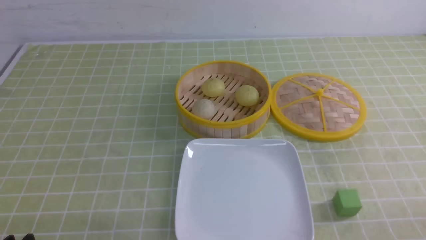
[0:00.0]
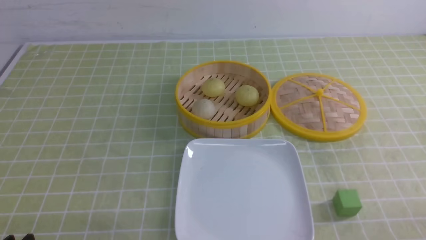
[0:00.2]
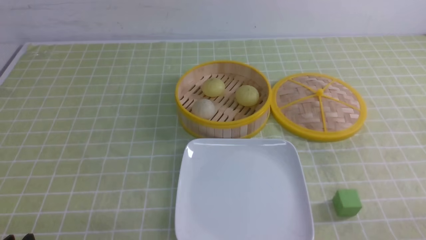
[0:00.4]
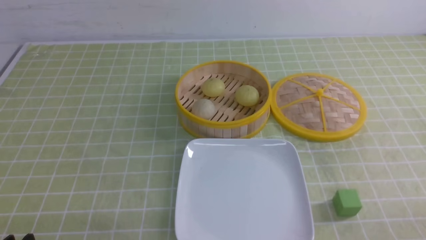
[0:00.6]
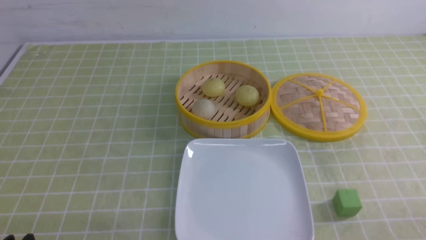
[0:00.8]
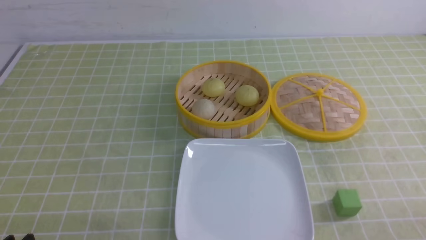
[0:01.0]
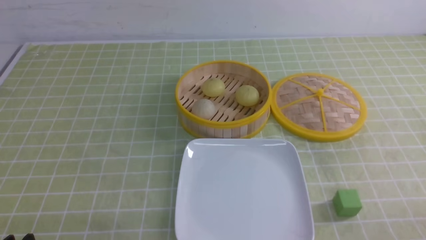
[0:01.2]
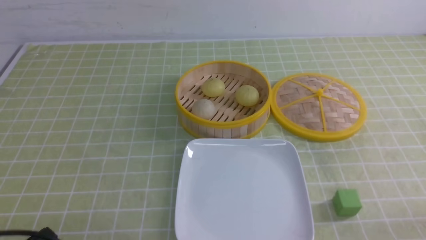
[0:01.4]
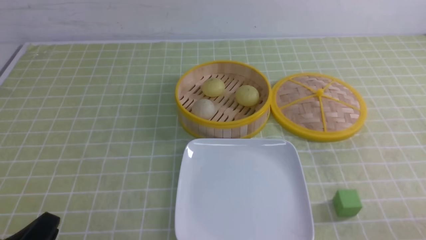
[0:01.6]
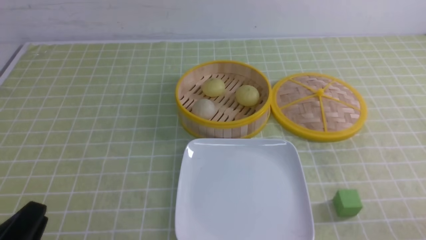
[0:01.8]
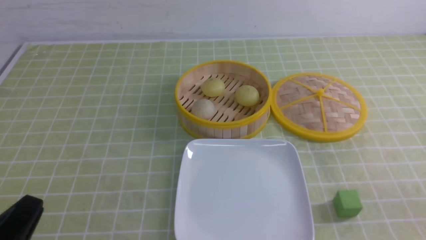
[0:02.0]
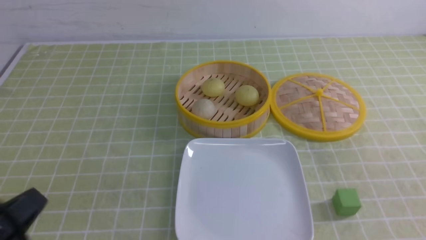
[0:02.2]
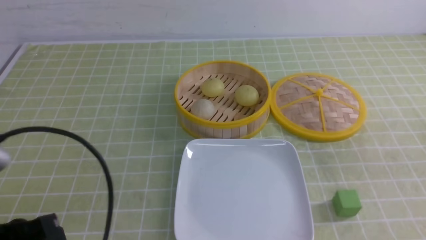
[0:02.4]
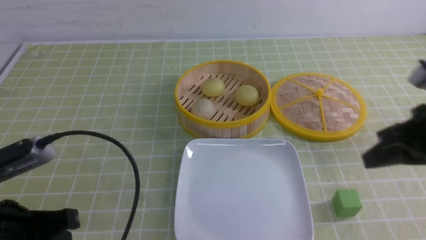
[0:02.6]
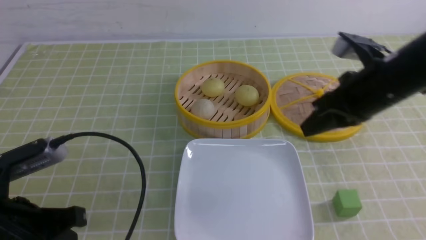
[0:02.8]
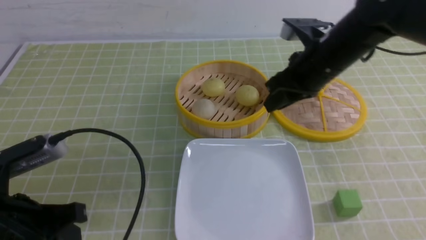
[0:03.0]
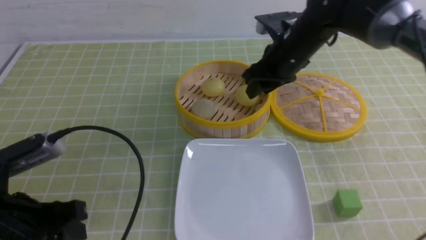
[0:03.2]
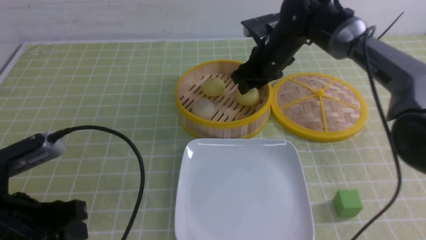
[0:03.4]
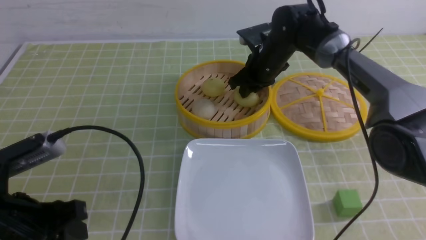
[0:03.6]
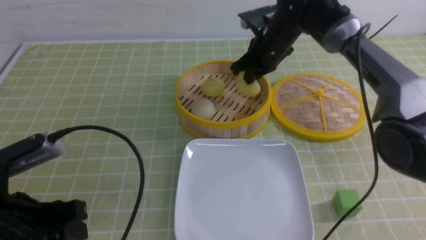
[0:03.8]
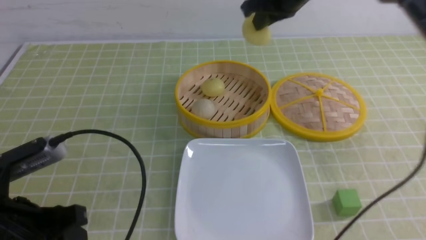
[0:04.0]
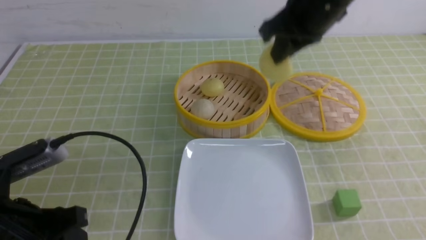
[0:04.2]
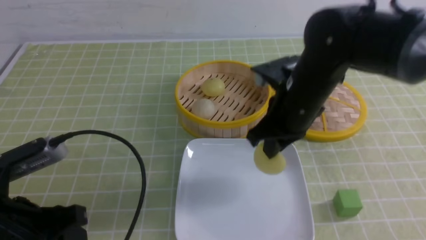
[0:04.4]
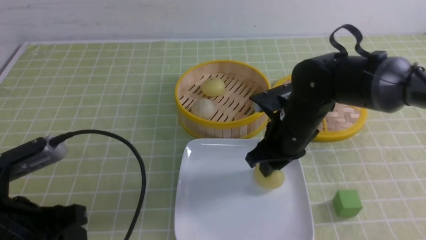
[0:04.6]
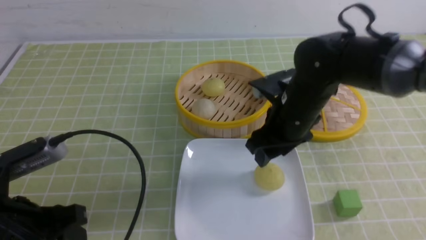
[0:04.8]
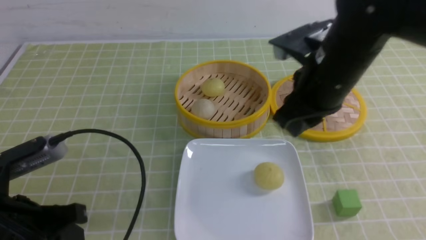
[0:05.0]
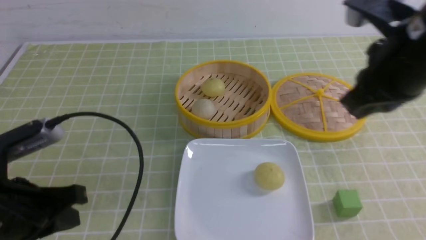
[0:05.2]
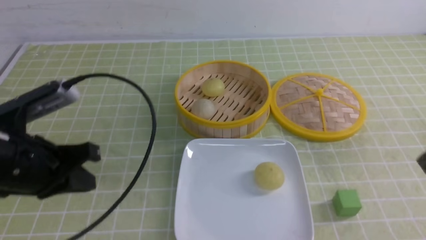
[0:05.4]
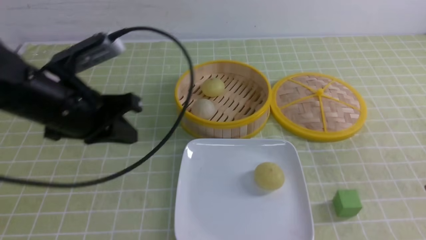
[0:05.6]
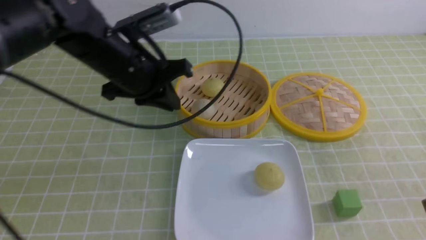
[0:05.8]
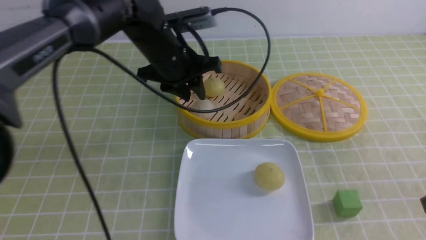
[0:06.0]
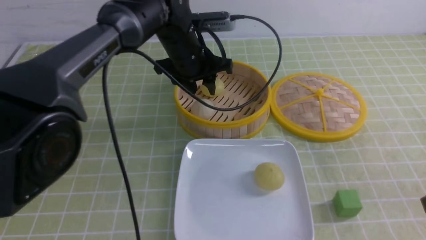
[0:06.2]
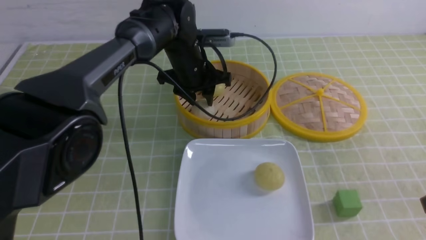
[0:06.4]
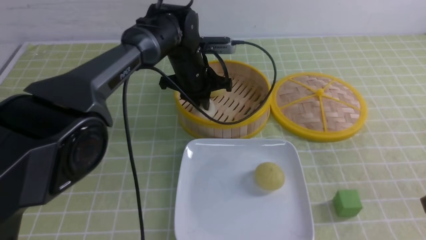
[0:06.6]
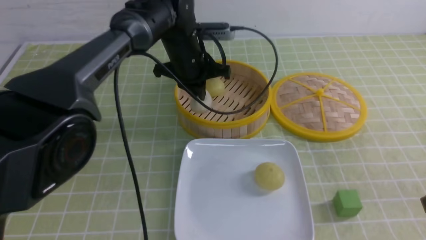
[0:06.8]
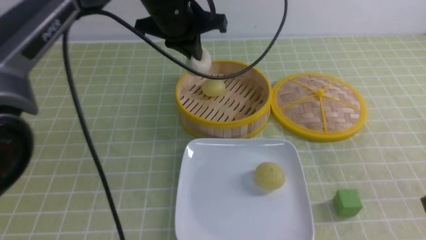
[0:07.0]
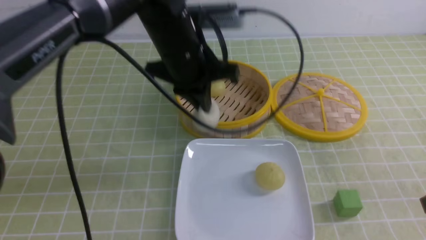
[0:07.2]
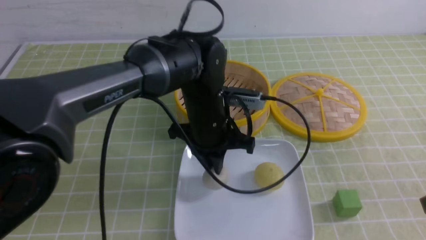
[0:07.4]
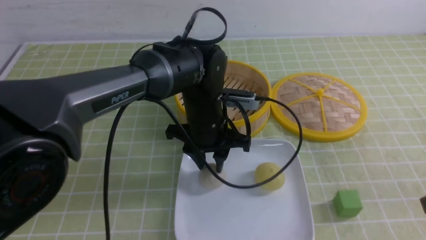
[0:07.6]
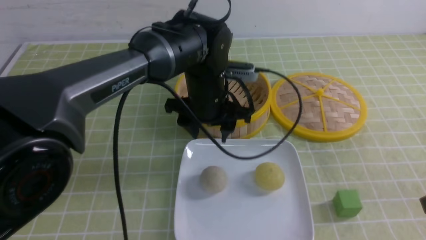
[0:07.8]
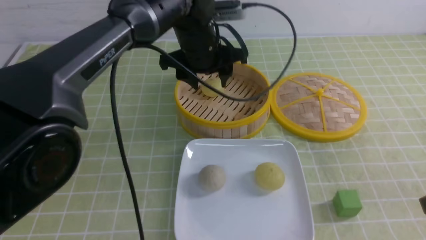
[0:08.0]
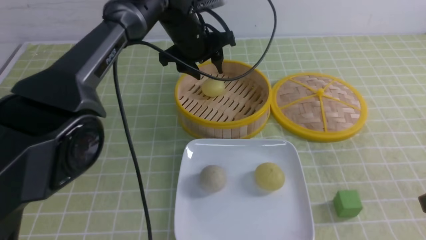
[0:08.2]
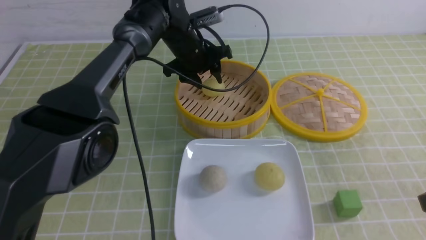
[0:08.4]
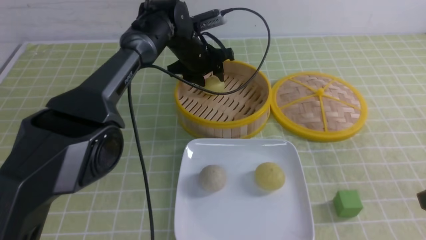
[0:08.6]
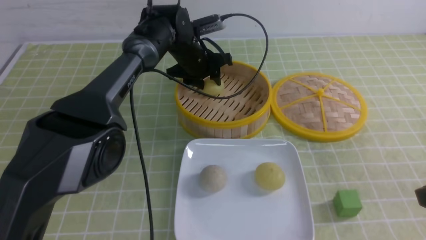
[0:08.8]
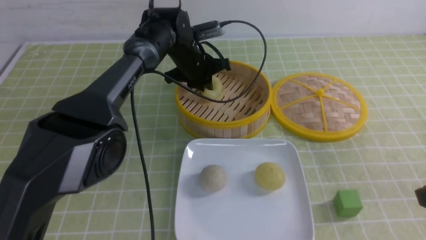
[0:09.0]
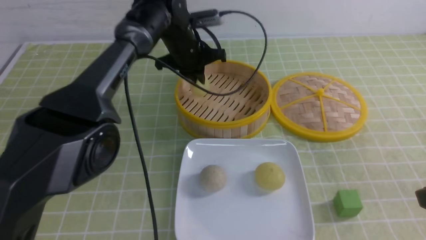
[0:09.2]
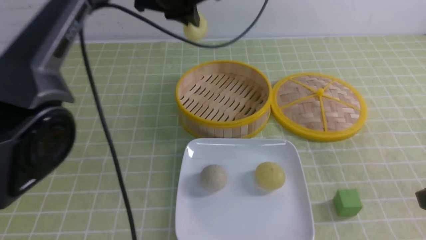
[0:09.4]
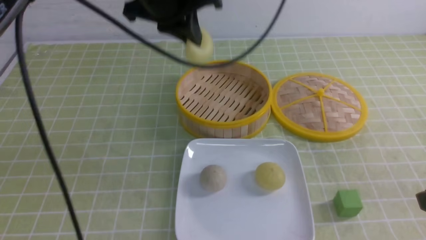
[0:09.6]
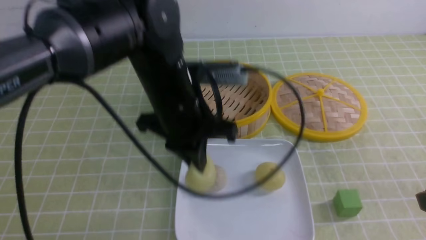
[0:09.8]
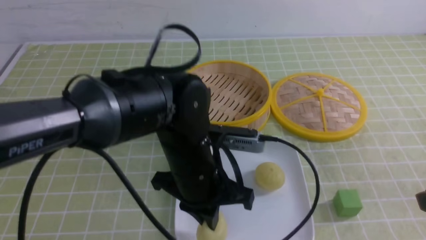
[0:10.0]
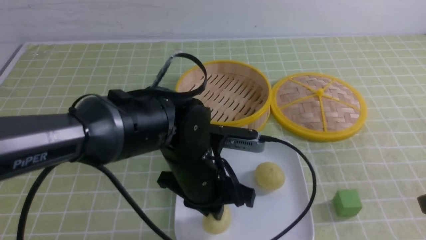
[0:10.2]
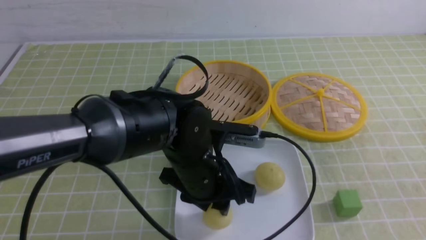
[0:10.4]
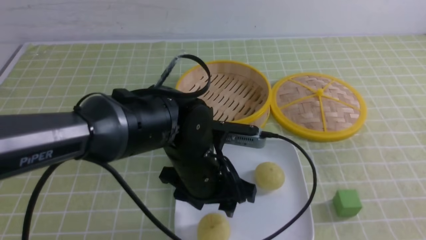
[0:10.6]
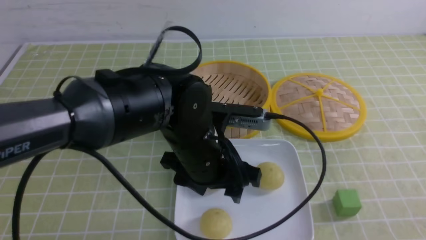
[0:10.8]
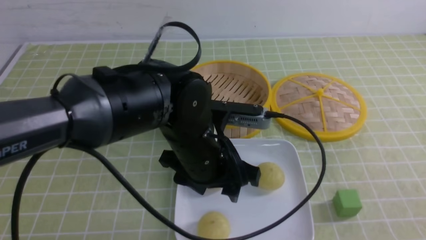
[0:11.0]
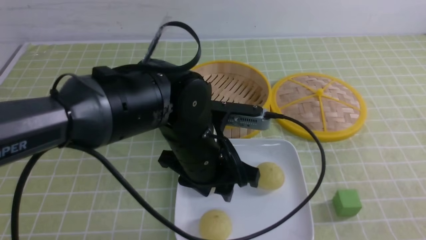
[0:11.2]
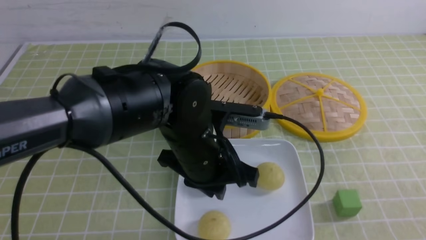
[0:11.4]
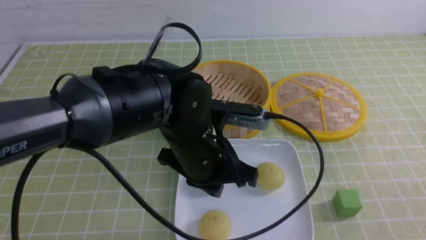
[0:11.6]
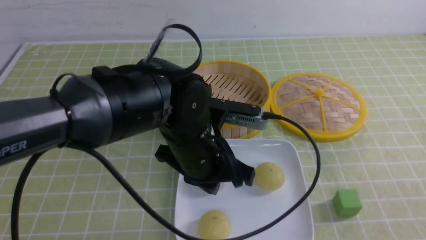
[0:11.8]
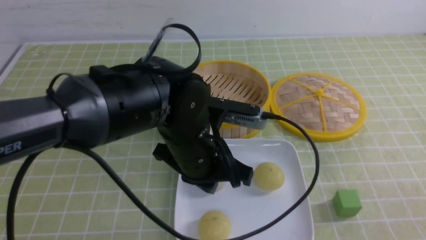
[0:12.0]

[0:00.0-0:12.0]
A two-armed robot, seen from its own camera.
Step, 0:00.0 to 0:03.6: use the right arm to grab the steamed stuffed bun that is closest to it.
Step, 0:03.8 to 0:04.6: use the right arm to put the steamed stuffed bun into the plate.
Step, 0:04.8 to 0:06.6: use the left arm to grab the steamed stuffed bun that is closest to it.
Step, 0:06.8 to 0:07.6: use the left arm to put the steamed stuffed bun into the plate.
Step, 0:07.8 to 0:09.0: use the left arm to grab the steamed stuffed bun that is closest to it.
Step, 0:09.2 to 0:10.4: use the left arm to put the steamed stuffed bun into the plate.
0:01.6 to 0:03.0: The right gripper moves forward and to the left, some 35 cm, and closes, then opens again. Meanwhile the left gripper shifts some 10 cm forward and upward, and closes, then opens again.
0:03.0 to 0:04.4: The right gripper moves approximately 10 cm forward and comes back, and closes.
0:04.4 to 0:06.0: The right gripper heads backward and to the right, covering approximately 25 cm, and opens and closes again, while the left gripper shifts roughly 30 cm forward and to the right, and closes and opens again.
0:06.0 to 0:07.6: The left gripper shifts some 10 cm downward, to the right and backward, and closes, then opens again.
0:07.6 to 0:09.0: The left gripper is displaced forward by about 15 cm, and closes.
0:09.0 to 0:10.4: The right gripper moves roughly 5 cm; the left gripper is displaced backward by about 25 cm, and opens.
0:10.4 to 0:12.0: The right gripper moves downward, approximately 10 cm; the left gripper heads upward, covering roughly 5 cm, and closes up.

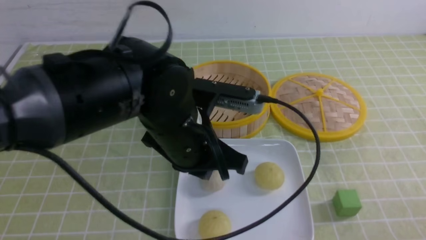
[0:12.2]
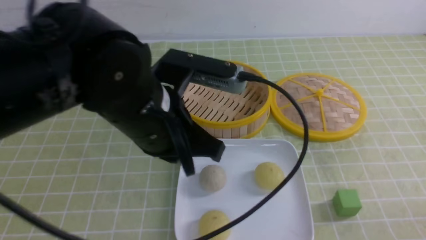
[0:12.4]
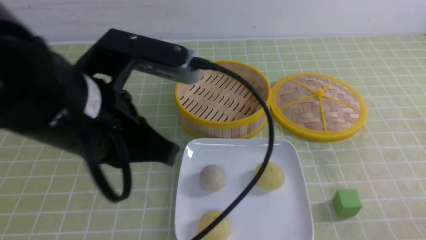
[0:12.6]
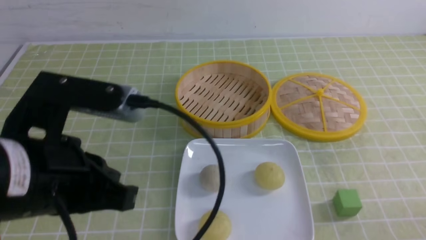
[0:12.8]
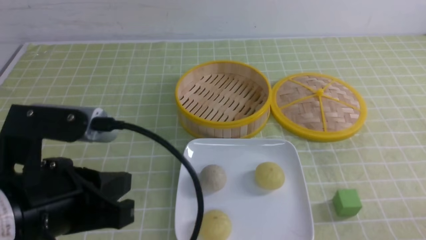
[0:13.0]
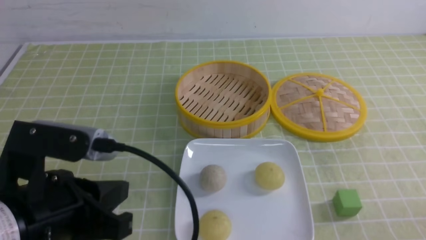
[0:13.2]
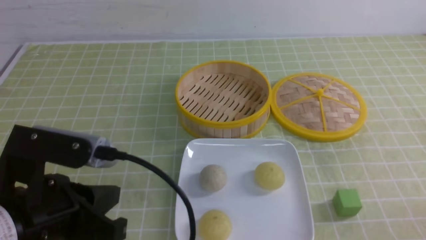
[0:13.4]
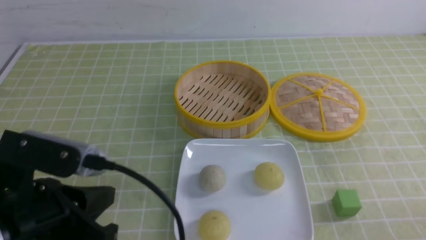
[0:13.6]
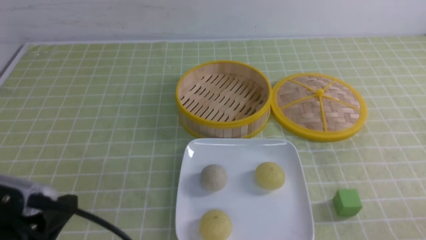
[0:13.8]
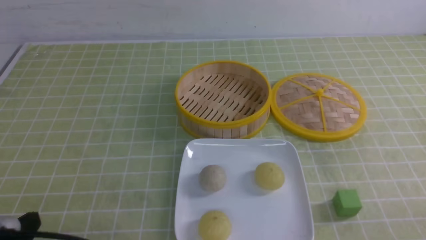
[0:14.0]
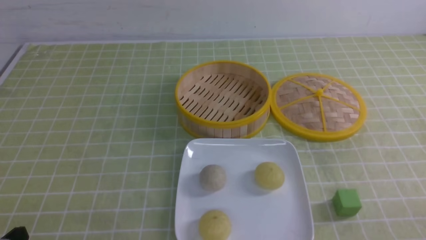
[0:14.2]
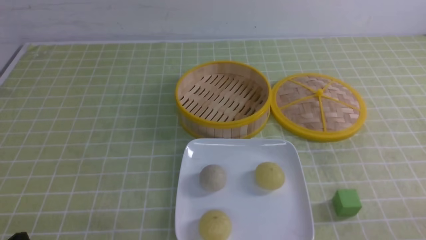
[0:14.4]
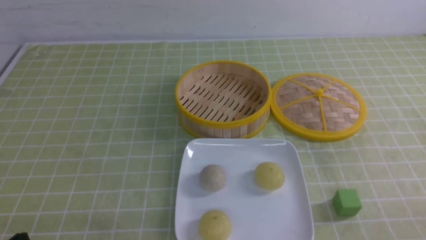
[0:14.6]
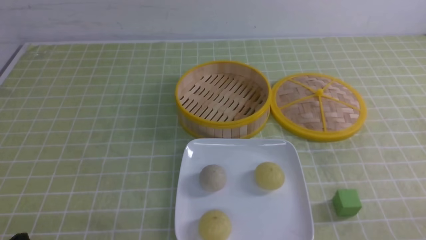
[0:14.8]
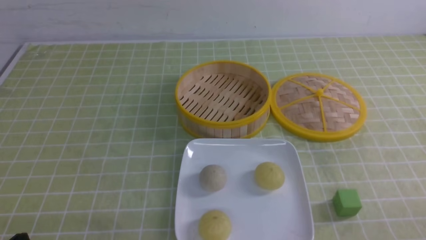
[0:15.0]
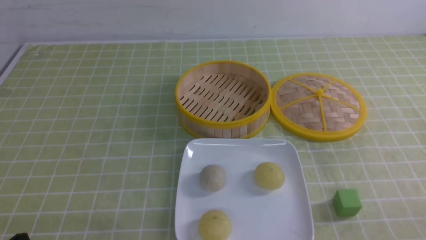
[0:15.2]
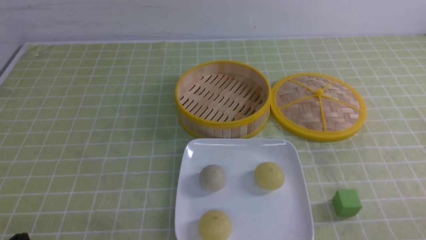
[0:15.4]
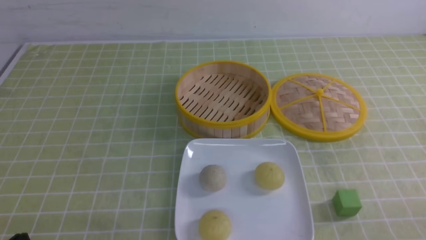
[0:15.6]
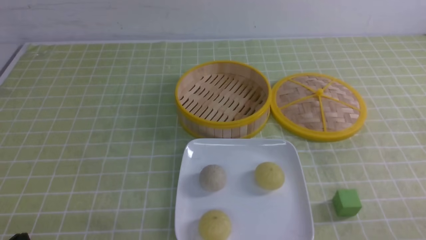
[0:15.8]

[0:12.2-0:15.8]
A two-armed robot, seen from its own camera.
0:12.2 to 0:14.0: The left gripper heads to the left and backward, covering approximately 25 cm.
0:14.0 to 0:15.8: There are only small adjustments of the grippers.

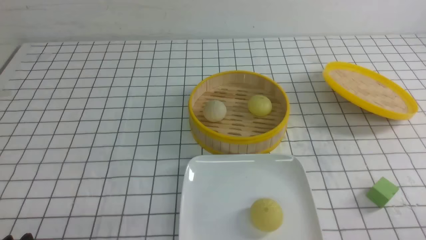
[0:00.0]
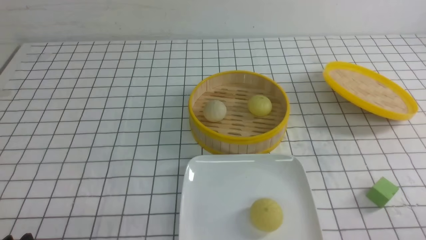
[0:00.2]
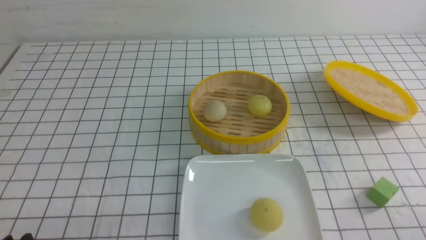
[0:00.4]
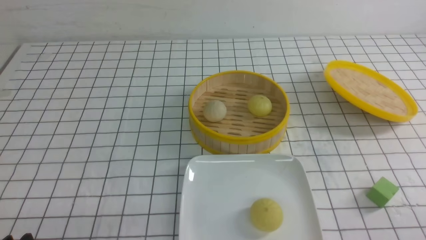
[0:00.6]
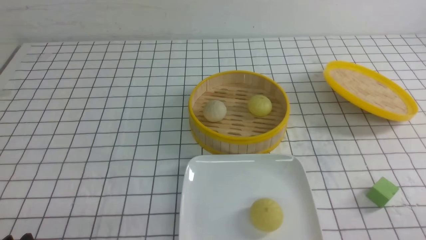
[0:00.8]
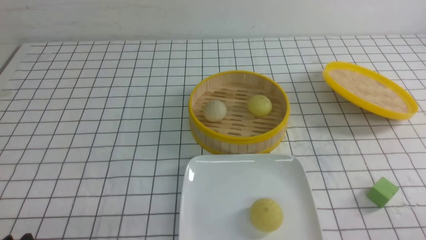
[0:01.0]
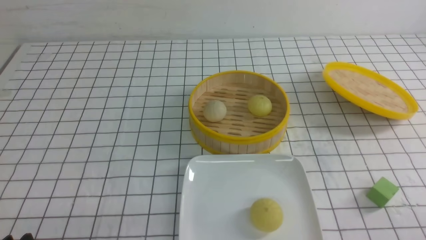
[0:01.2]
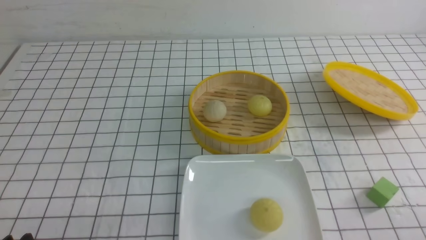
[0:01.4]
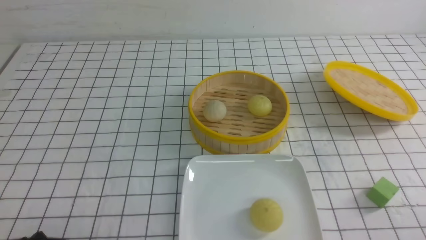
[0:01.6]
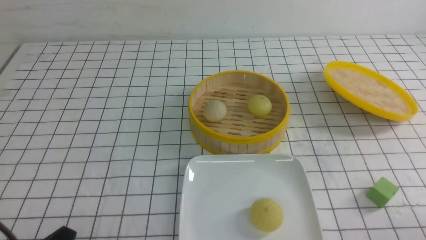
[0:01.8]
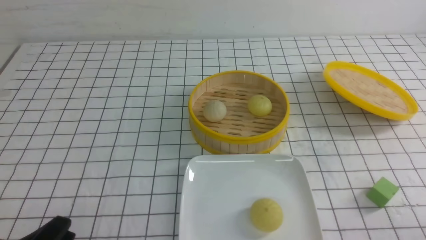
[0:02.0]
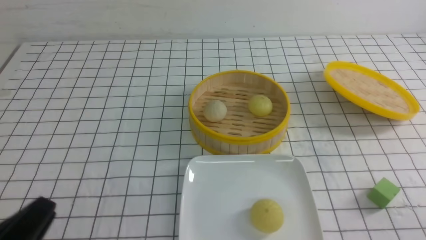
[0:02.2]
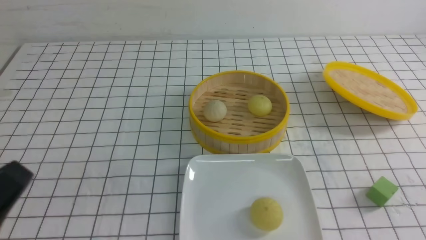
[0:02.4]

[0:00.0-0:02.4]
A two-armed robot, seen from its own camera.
0:00.0 to 0:01.2: Neither gripper changes place.
0:01.2 to 0:02.4: The left gripper moves upward, about 10 cm, and closes.
